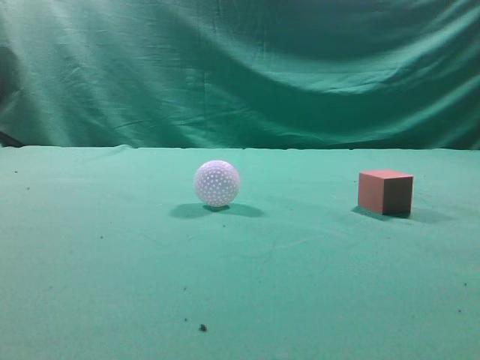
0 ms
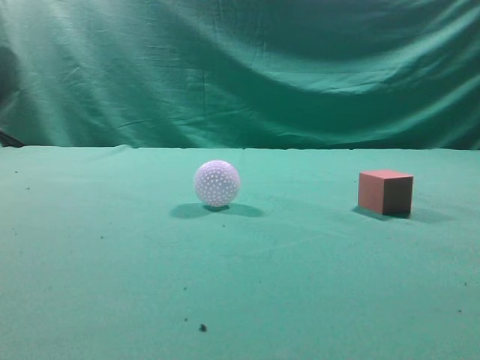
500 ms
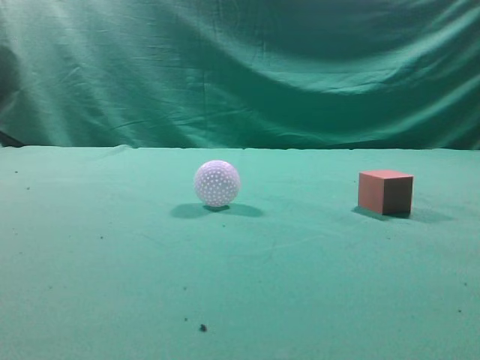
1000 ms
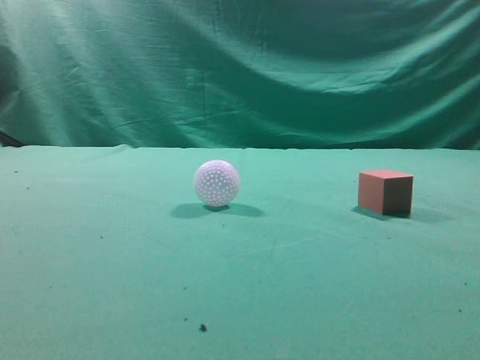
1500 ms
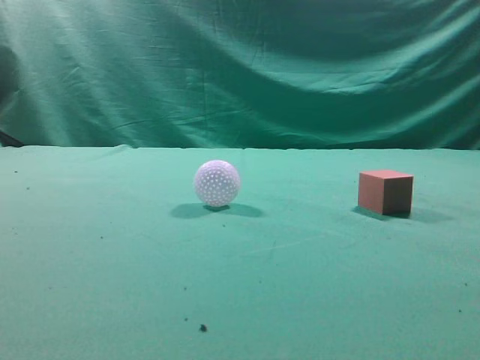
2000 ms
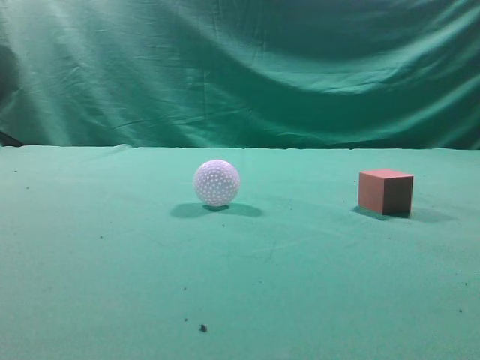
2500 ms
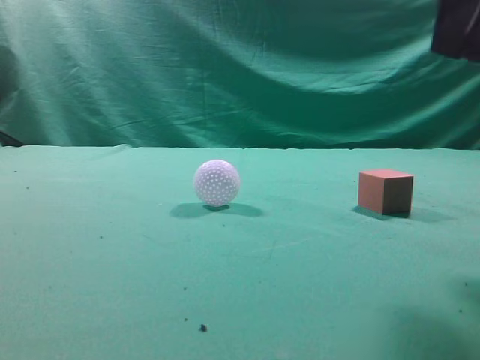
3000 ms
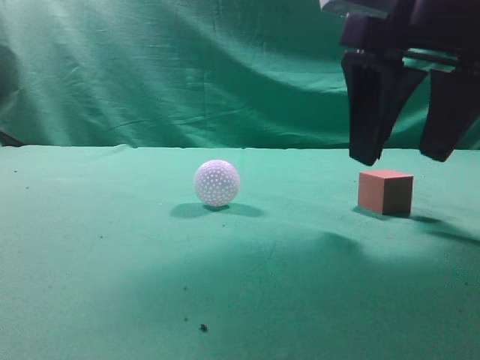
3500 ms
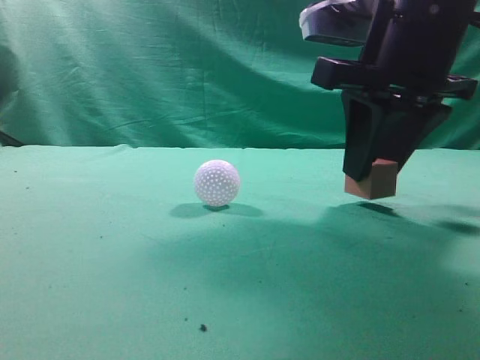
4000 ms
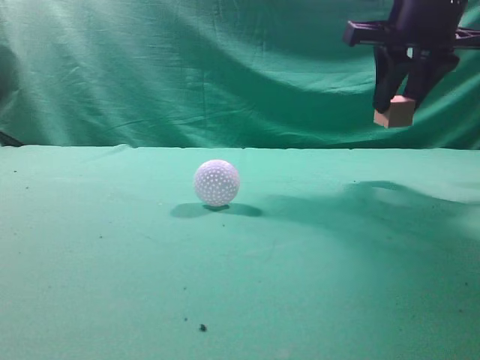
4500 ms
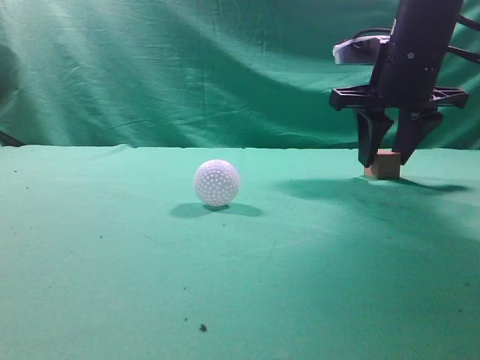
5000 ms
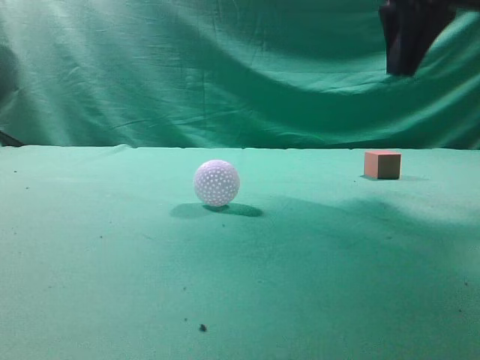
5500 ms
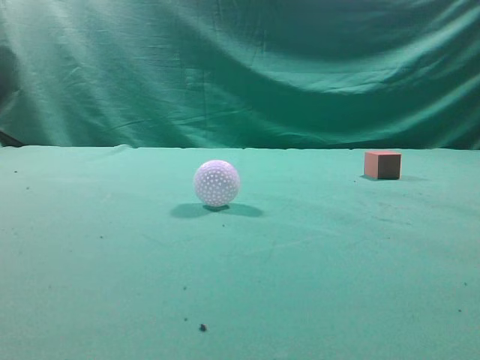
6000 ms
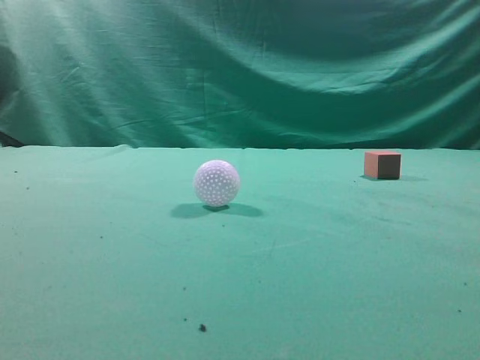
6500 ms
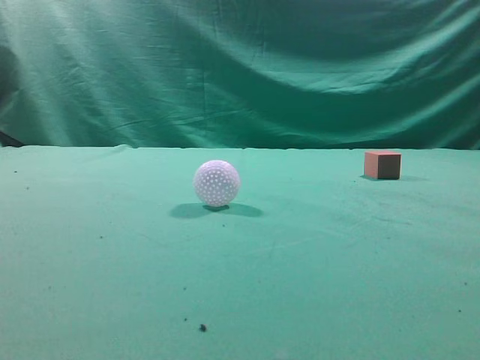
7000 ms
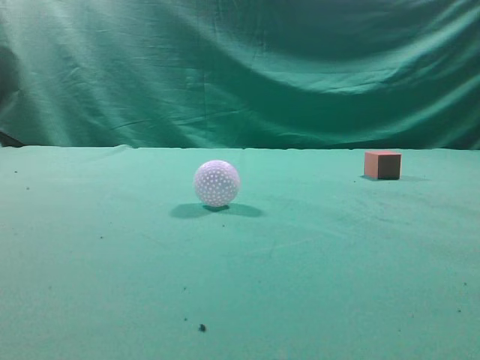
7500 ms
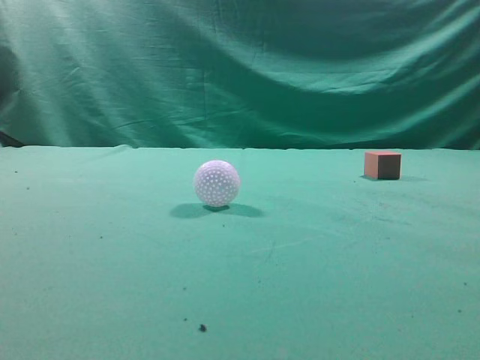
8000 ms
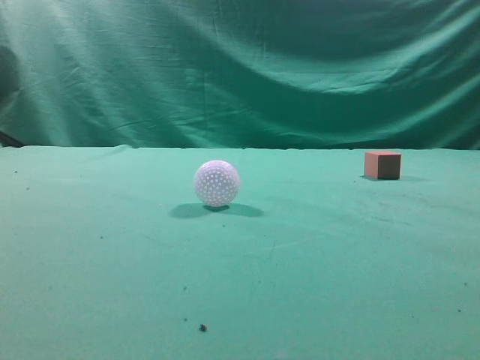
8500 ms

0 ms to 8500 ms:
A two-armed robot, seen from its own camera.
Task of the whole recording: pick up the cube block and place it in another position on the table.
Step, 0 ms to 4000 ms: Pick up the small cube.
Step, 4500 ms to 5000 ms: Place the small cube on the ahead of the table.
2000 ms to 4000 ms: The right gripper moves forward, to the left and downward, some 25 cm, and opens up.
4000 ms to 6500 ms: The right gripper moves backward, upward and to the right, some 30 cm, and closes its fingers.
